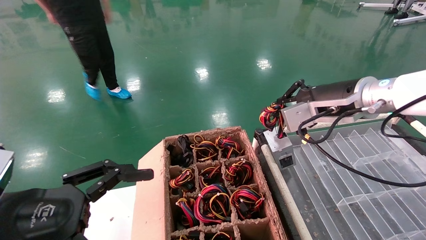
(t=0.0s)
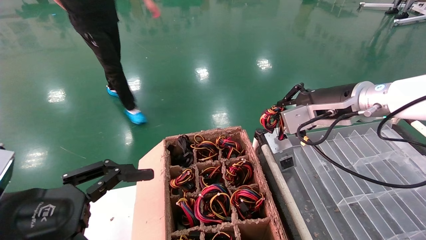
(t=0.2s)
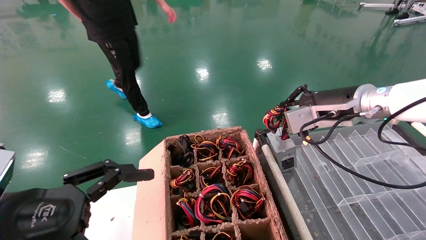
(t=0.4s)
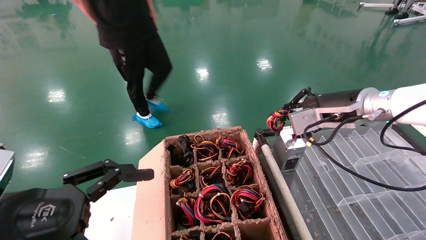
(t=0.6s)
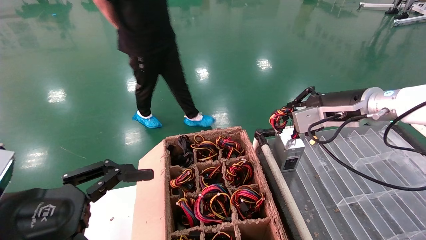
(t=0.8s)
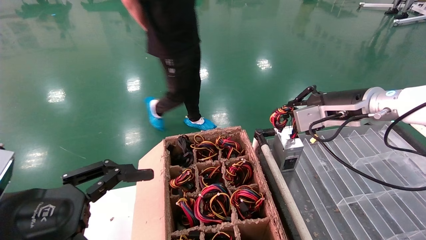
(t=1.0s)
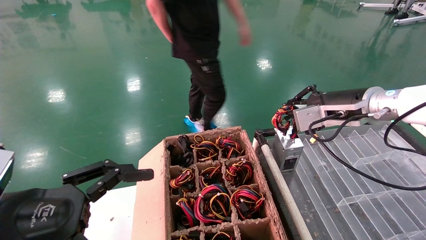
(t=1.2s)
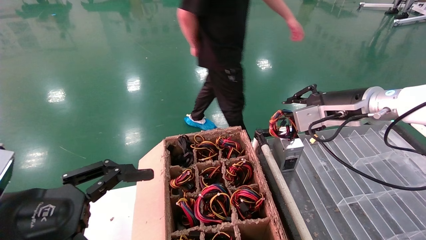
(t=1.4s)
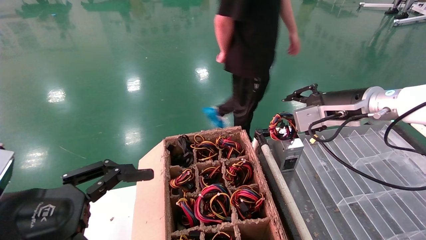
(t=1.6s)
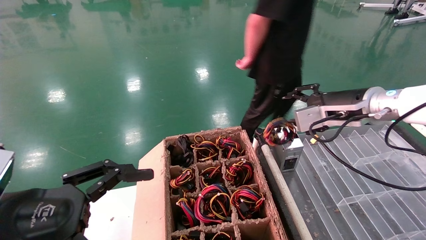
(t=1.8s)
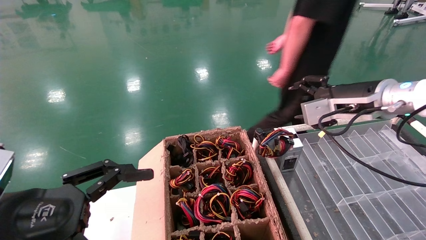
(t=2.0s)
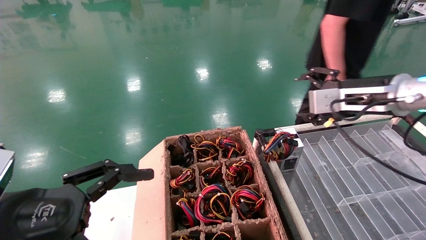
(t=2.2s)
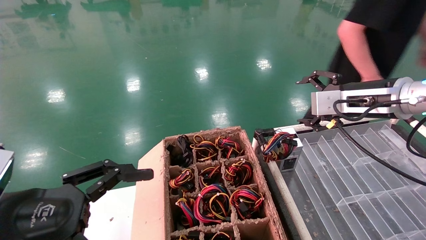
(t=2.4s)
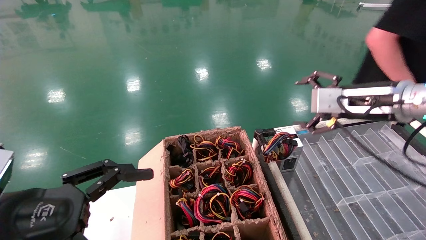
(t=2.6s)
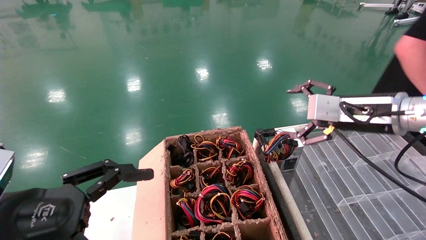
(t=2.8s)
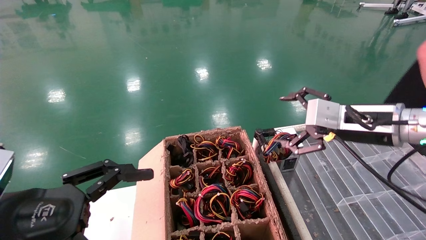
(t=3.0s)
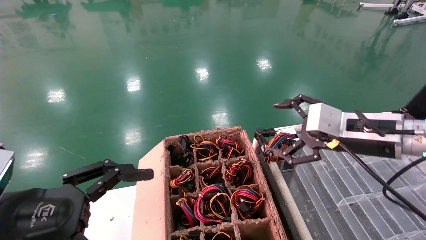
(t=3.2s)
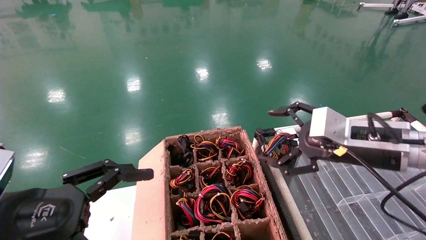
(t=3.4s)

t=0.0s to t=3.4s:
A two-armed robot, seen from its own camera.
t=0.0s to t=1.6s: The right gripper shifts by approximately 5 cm.
t=1.6s to t=3.4s: The right gripper moves backward and downward, some 10 cm, and opens up.
